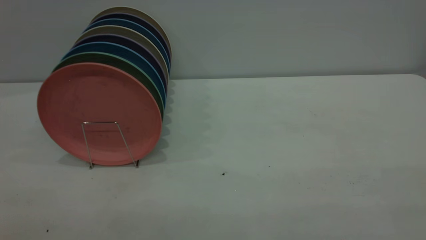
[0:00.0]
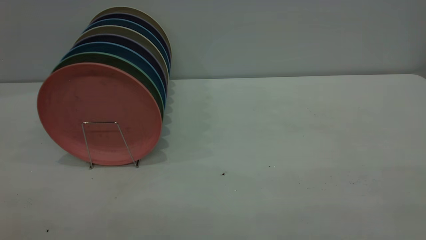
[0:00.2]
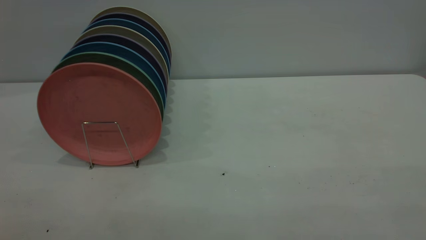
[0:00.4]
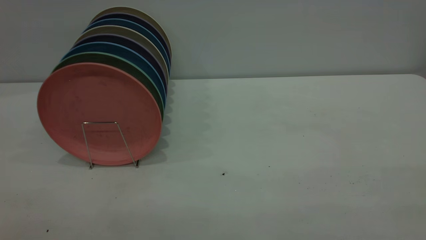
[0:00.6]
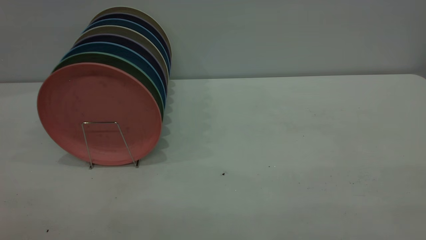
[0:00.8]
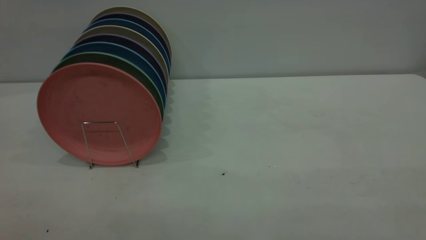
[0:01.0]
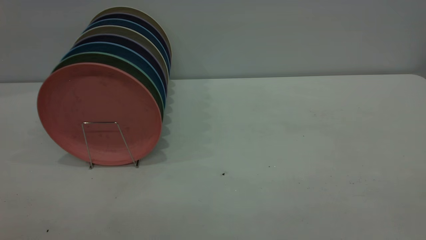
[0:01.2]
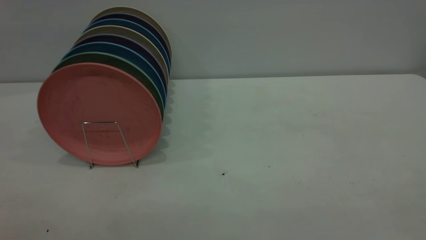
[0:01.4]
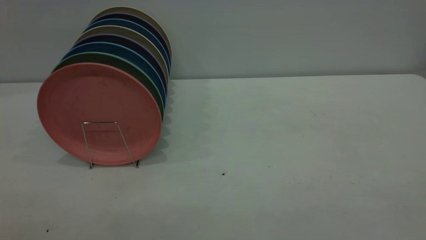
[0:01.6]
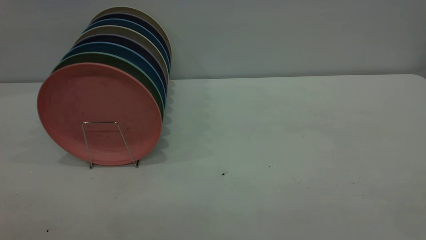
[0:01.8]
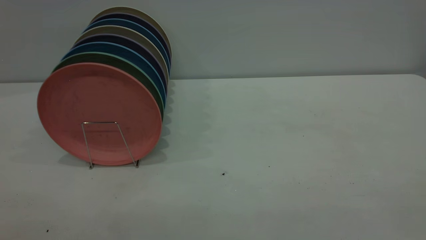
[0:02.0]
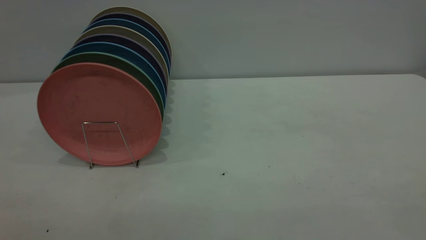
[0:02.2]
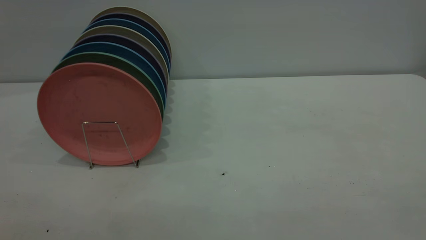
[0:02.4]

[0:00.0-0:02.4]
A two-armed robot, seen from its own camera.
Task of the whole recording: the right gripper grasp the pink plate, the right gripper pass the pink plate to the left gripper, and the left gripper place the pink plate on the plate rack.
0:01.2 to 0:02.4: Both grippers stay put.

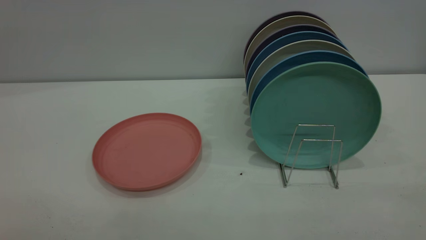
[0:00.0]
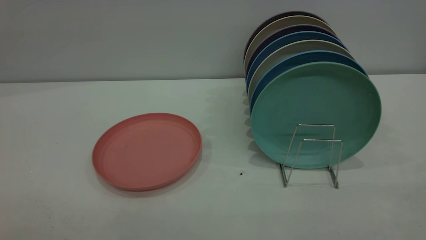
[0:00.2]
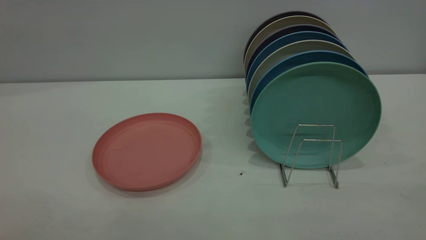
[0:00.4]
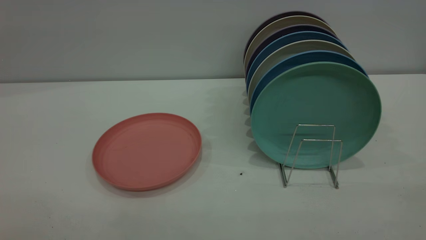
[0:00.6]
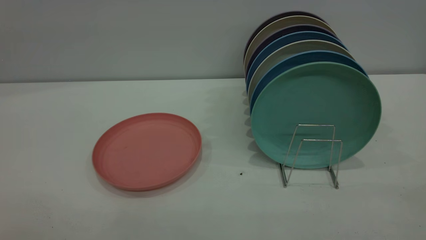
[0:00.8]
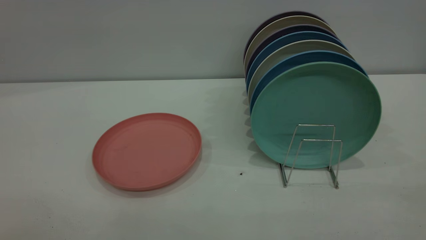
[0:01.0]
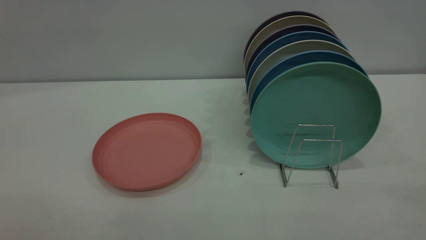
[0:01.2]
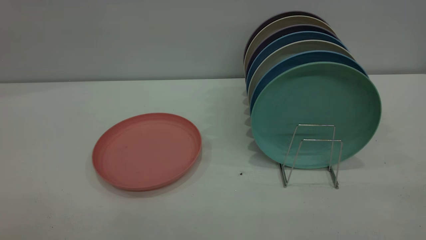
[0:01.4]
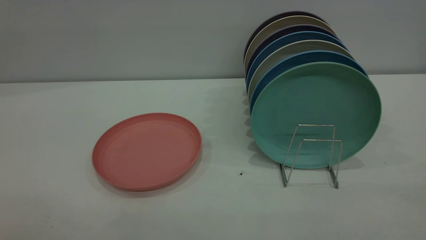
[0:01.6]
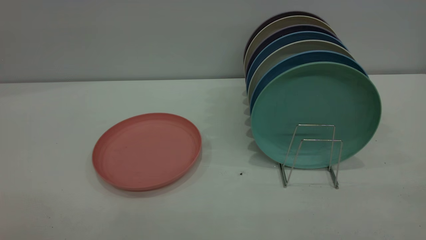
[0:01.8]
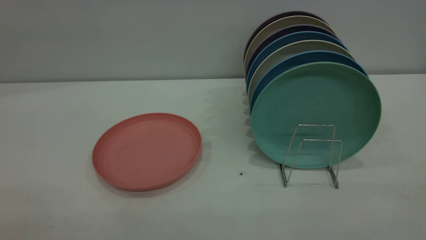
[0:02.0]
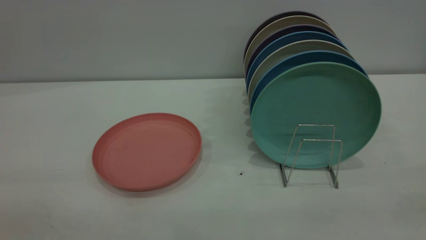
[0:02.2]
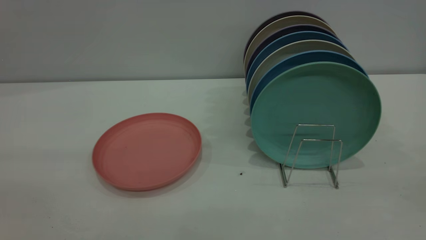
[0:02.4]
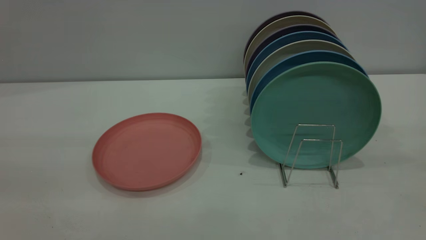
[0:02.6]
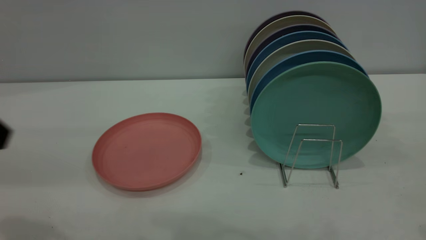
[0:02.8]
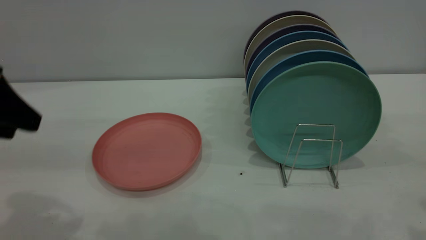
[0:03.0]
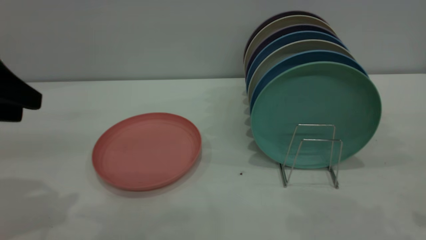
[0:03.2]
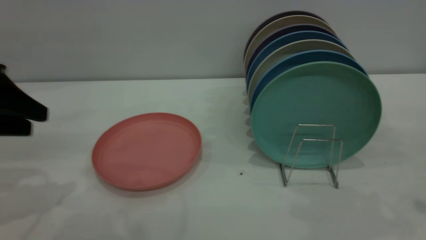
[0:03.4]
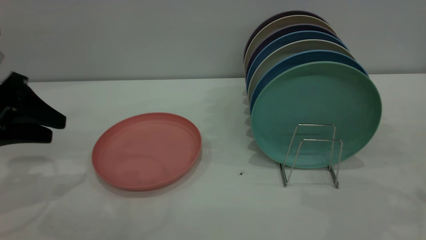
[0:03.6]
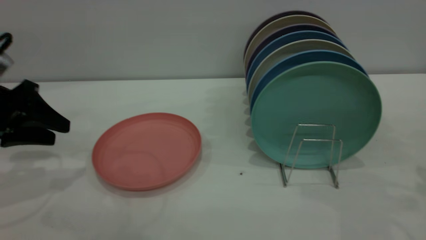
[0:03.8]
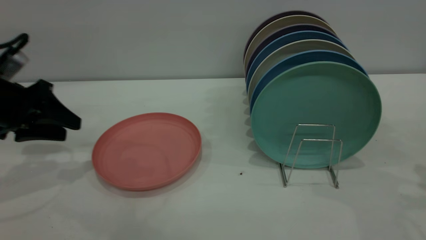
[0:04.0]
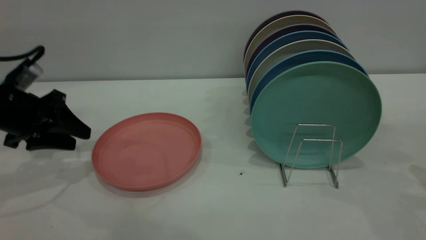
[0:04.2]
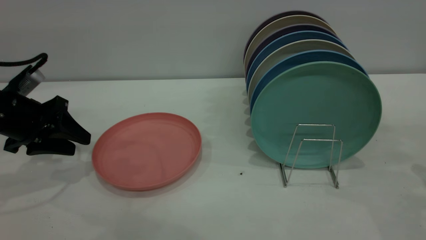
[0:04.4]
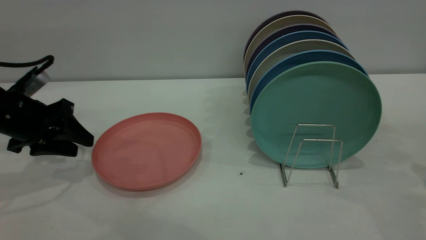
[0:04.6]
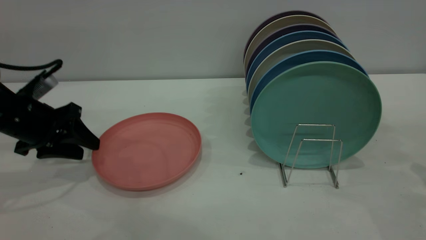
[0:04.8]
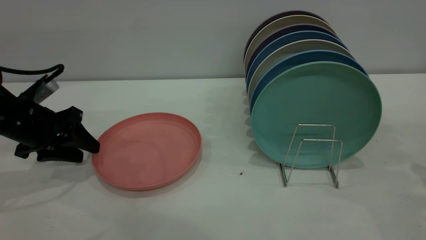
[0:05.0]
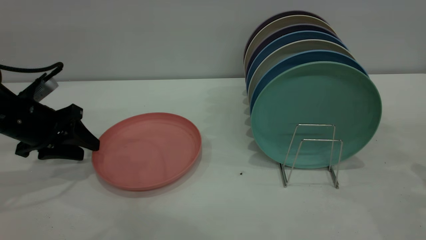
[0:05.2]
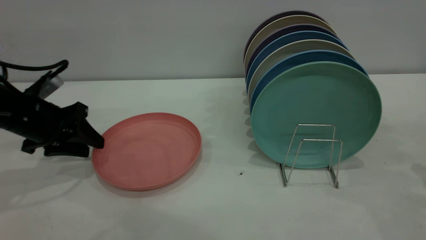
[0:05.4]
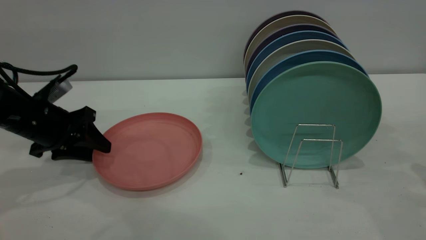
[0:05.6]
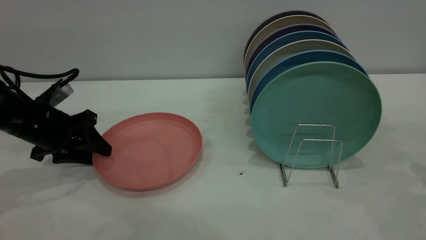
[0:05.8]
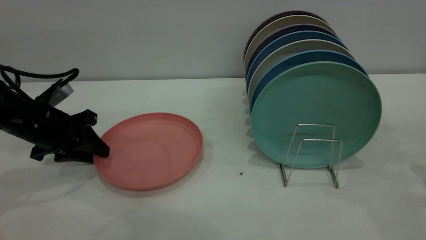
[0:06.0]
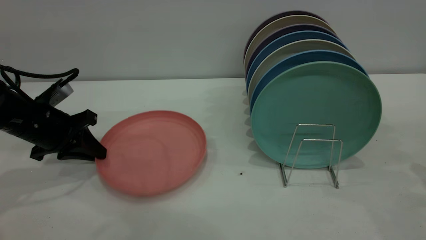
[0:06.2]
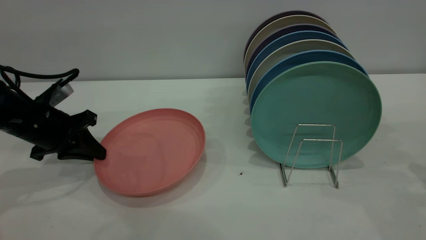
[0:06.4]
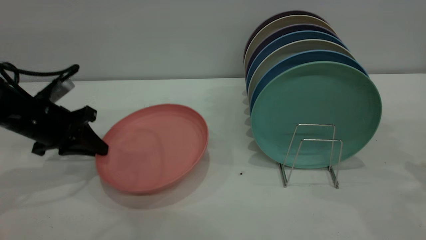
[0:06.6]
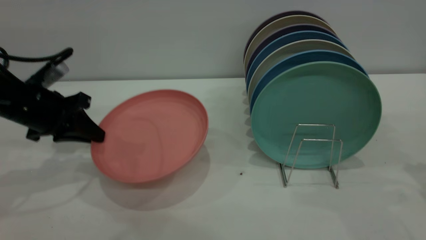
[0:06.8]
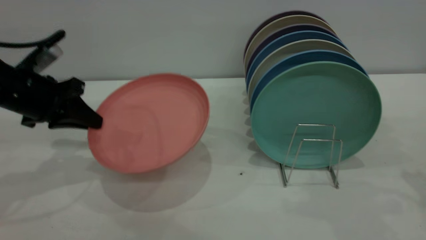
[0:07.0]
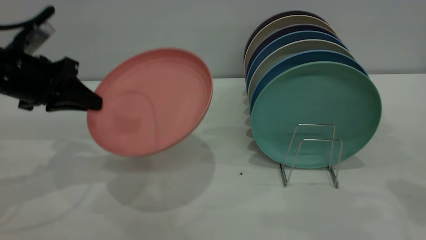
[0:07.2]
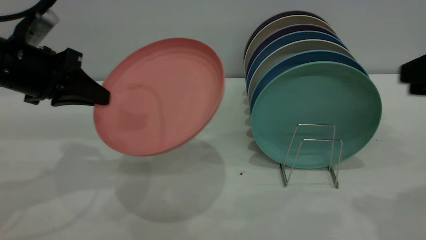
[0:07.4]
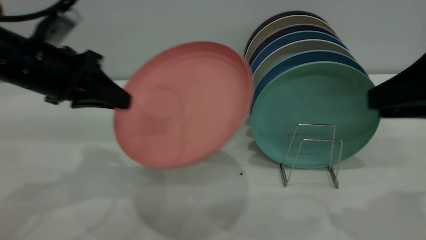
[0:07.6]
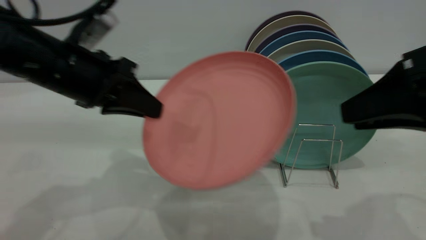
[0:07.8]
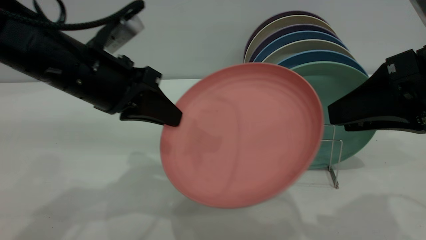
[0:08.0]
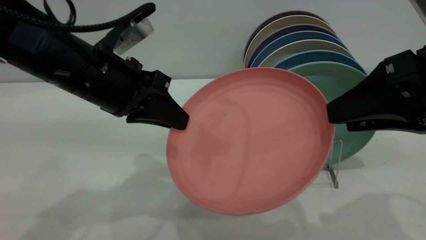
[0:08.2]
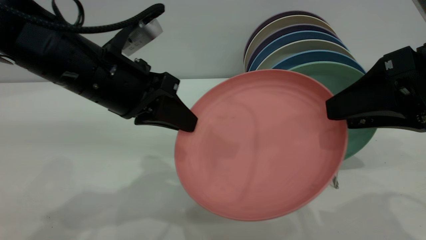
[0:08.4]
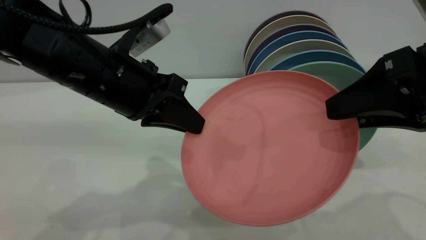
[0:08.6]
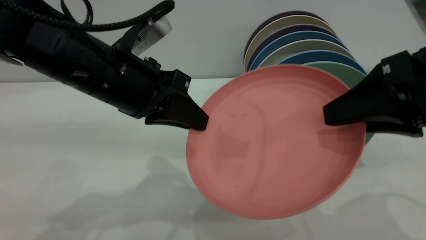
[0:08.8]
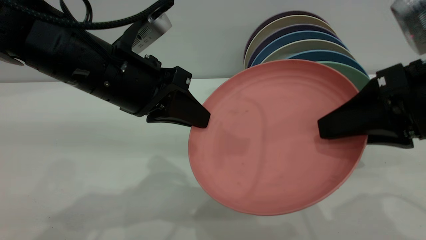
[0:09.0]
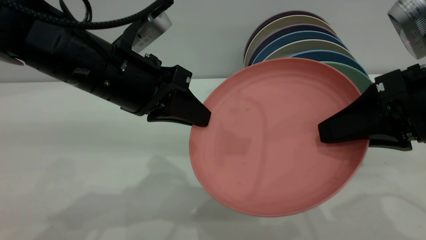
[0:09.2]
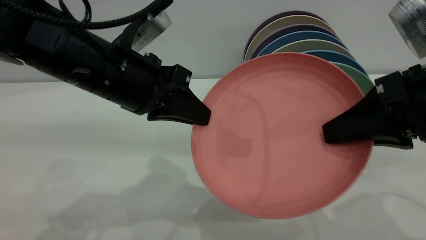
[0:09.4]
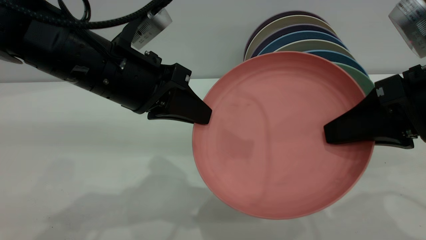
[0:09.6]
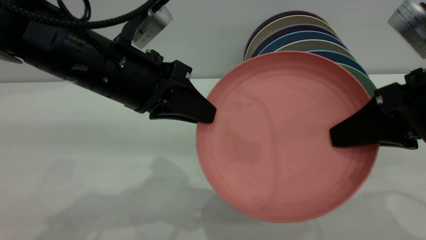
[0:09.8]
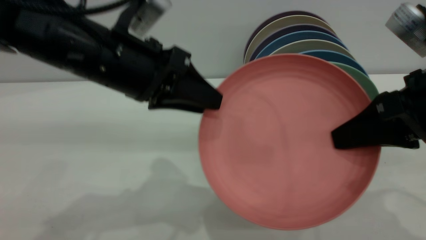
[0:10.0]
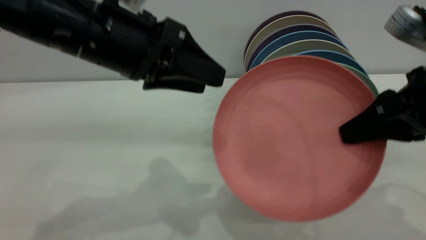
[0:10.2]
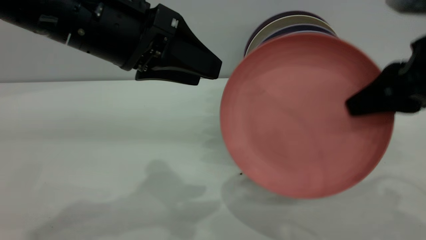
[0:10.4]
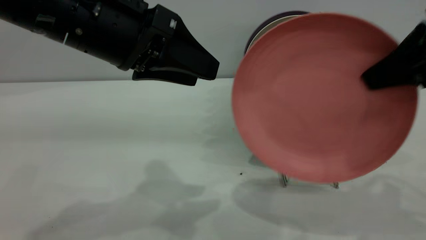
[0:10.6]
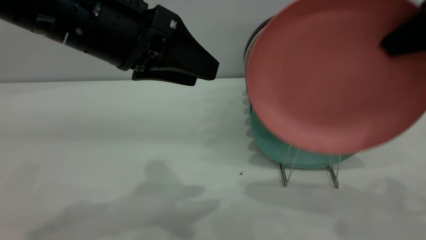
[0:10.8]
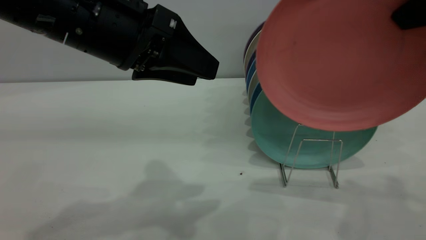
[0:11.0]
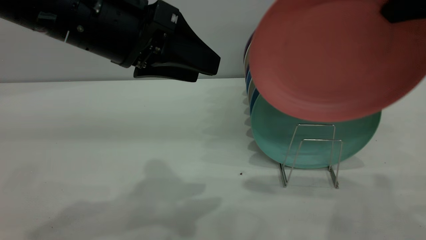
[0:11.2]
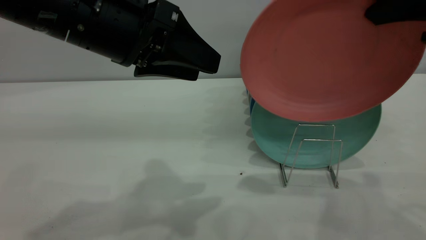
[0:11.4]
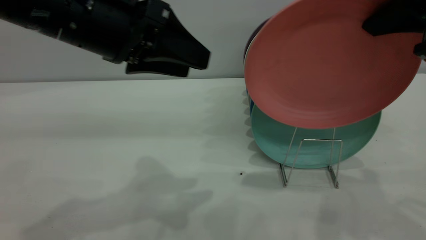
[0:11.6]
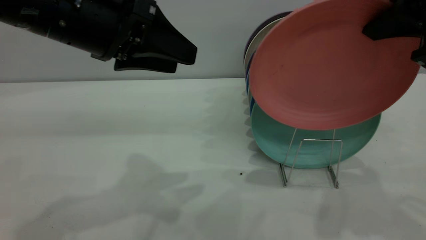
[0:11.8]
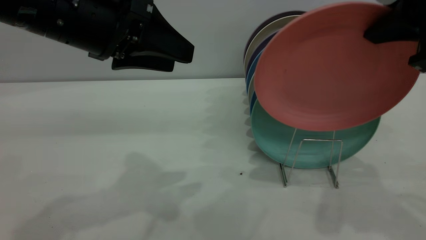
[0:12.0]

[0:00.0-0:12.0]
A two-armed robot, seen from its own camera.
Task of the whole recording: put the plate on the plate rack.
Step, 0:00.0 to 0:06.8: Pick up the plate with the left gripper.
Step, 0:07.0 to 0:10.0: Pass the plate from the left gripper to the right gripper.
0:00.0 to 0:01.6: Both grippers stay about where they are.
0:01.6 to 0:03.0: The left gripper moves forward, approximately 25 cm.
0:03.0 to 0:04.4: The left gripper moves downward and forward, some 20 cm.
0:04.4 to 0:06.0: The left gripper closes up.
0:06.0 to 0:07.6: The right gripper moves to the left and upward, about 15 cm. Meanwhile the left gripper moves upward and to the right, approximately 15 cm, and closes.
0:07.6 to 0:09.0: The right gripper opens and closes again. The left gripper is displaced to the right by approximately 10 cm.
0:09.0 to 0:10.4: The left gripper shifts some 5 cm upward, and opens its fingers. Meanwhile the right gripper closes up.
0:10.4 to 0:12.0: The right gripper heads upward, covering roughly 5 cm.

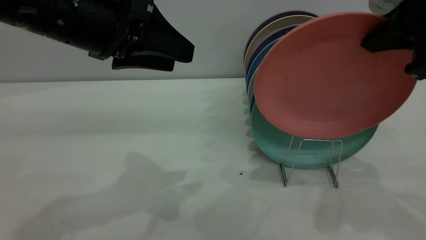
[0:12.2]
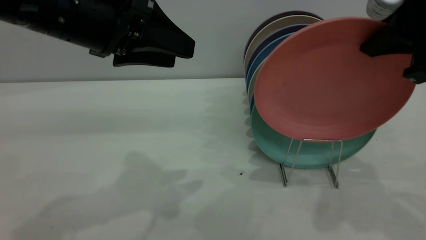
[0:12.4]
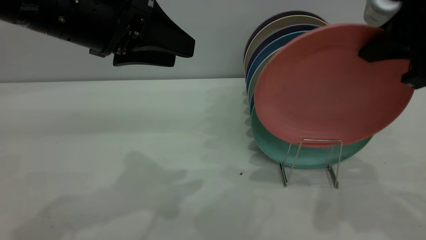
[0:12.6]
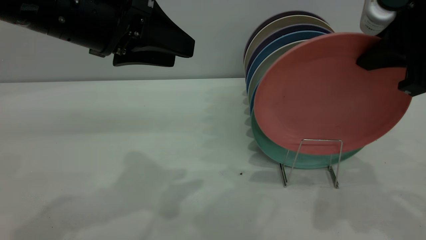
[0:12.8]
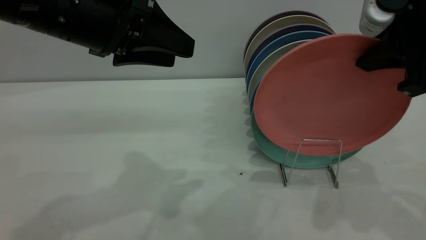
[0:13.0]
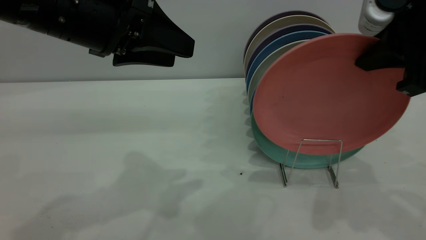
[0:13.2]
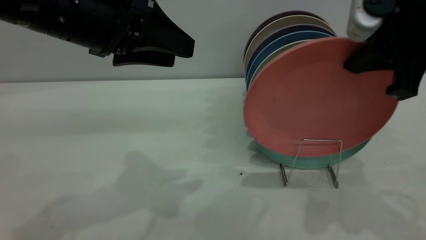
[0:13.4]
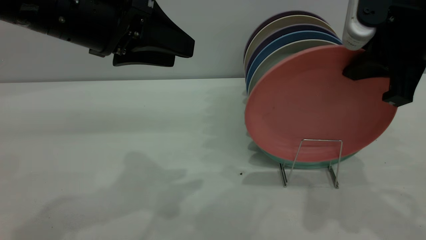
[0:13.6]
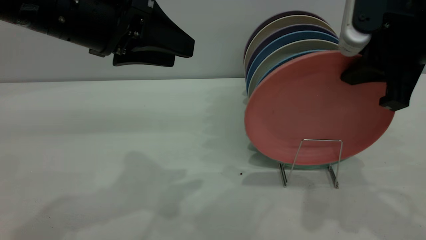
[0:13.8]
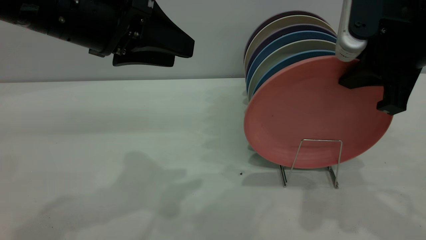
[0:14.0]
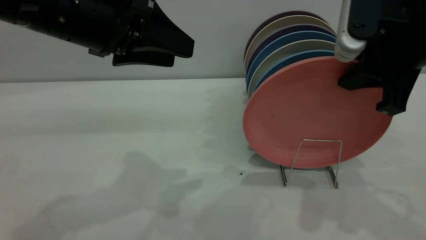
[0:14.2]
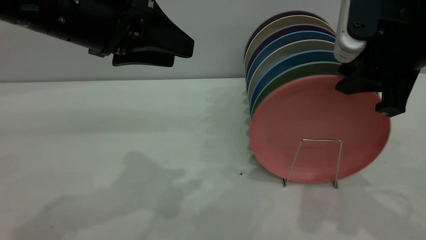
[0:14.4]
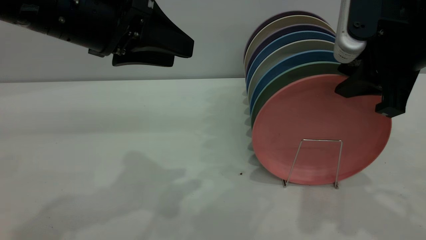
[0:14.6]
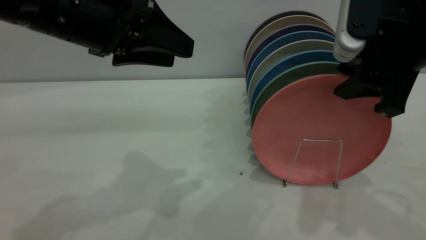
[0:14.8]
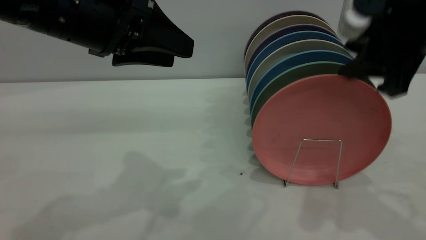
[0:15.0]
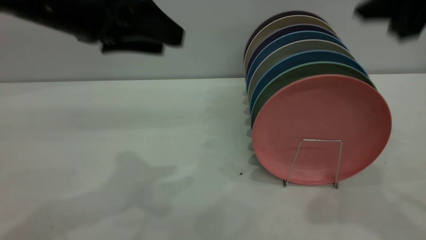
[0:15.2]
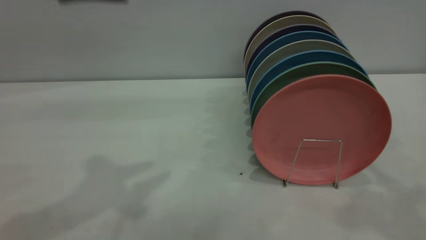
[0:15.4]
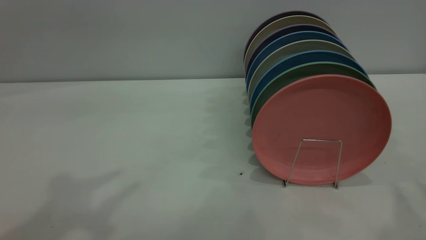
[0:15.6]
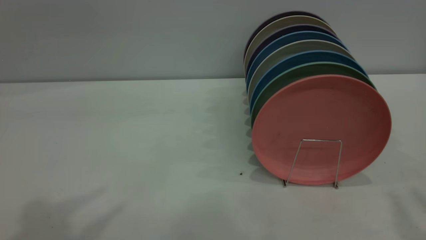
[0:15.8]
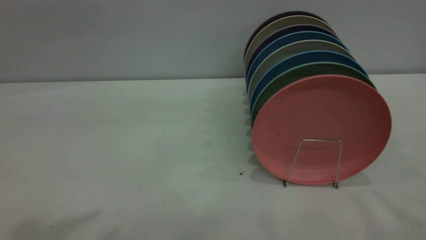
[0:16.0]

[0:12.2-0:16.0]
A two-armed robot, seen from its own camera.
Task of the whole recording: put the plate on the plate rack.
Step, 0:12.2 to 0:15.0: Place the plate on the shelf.
0:12.2 to 0:13.4: There are only small adjustments of the grippers.
0:13.4 to 0:14.8: The right gripper opens its fingers.
0:14.8 to 0:16.0: The grippers both shift upward and backward by approximately 20 cm.
